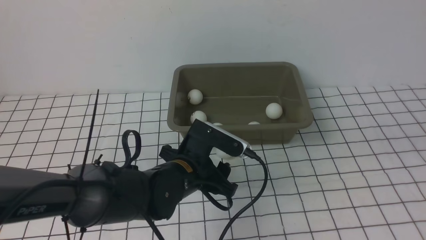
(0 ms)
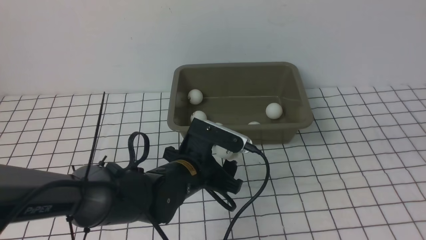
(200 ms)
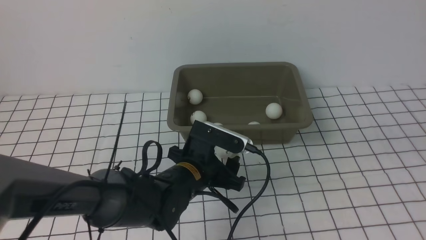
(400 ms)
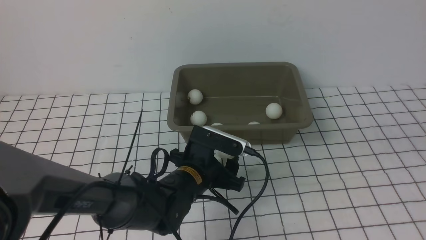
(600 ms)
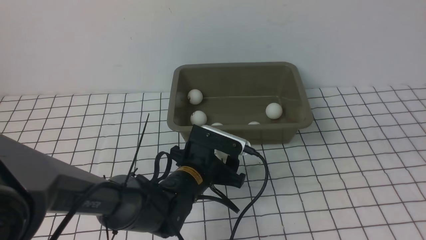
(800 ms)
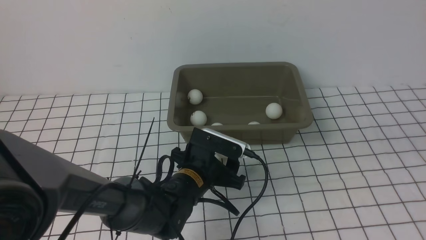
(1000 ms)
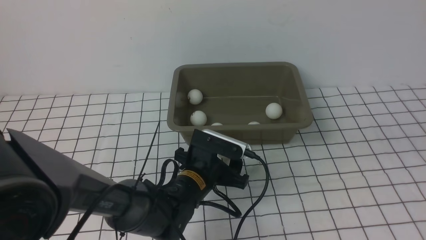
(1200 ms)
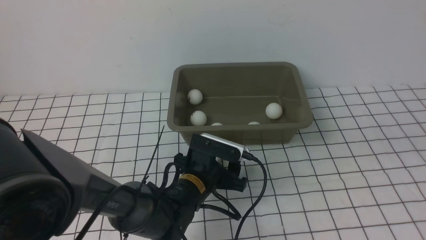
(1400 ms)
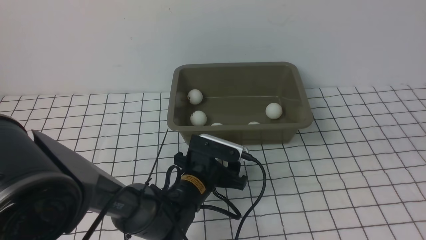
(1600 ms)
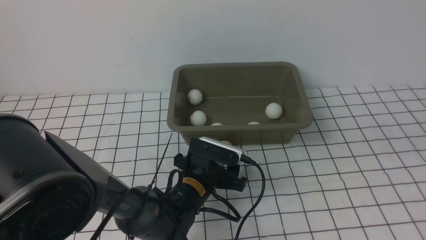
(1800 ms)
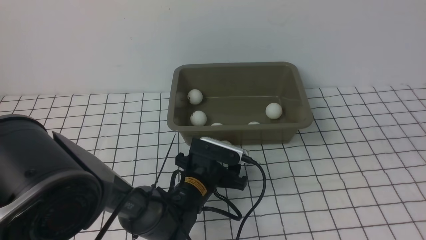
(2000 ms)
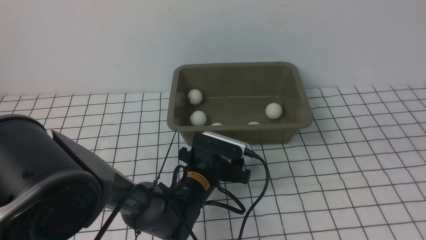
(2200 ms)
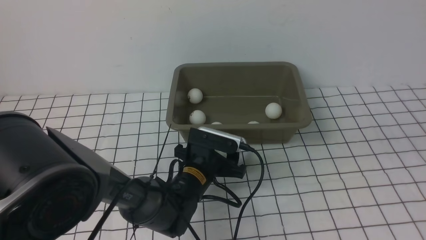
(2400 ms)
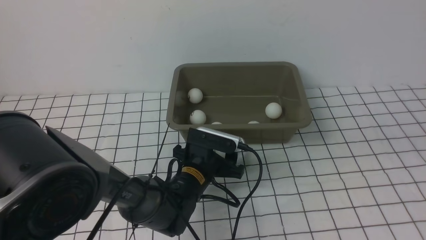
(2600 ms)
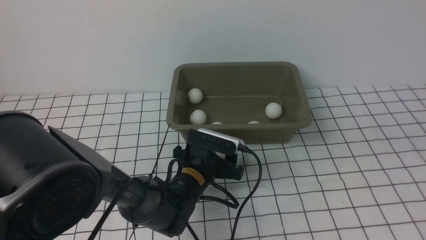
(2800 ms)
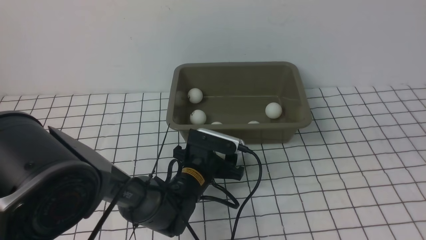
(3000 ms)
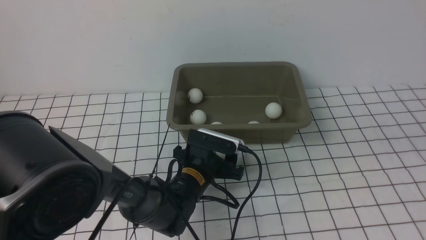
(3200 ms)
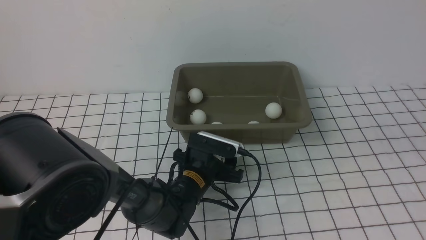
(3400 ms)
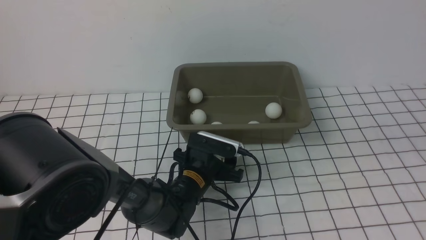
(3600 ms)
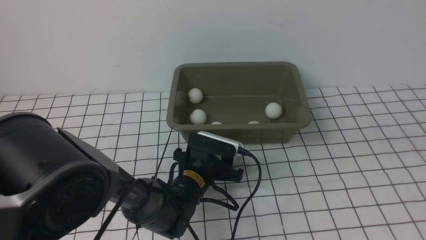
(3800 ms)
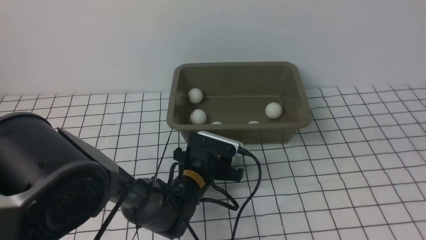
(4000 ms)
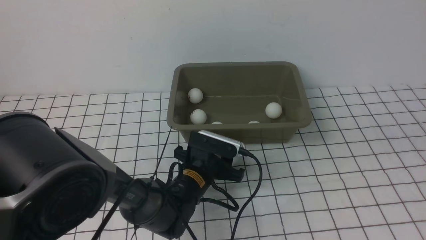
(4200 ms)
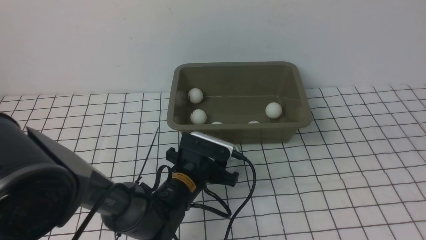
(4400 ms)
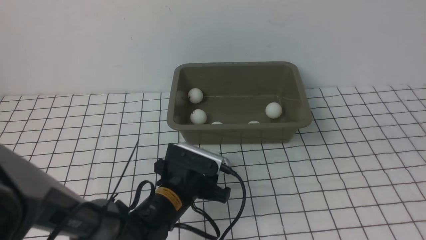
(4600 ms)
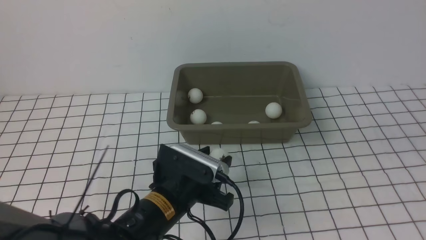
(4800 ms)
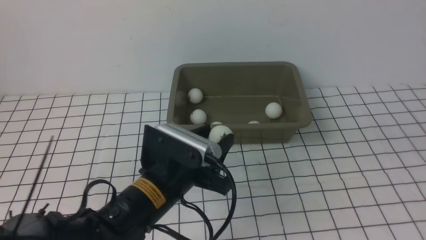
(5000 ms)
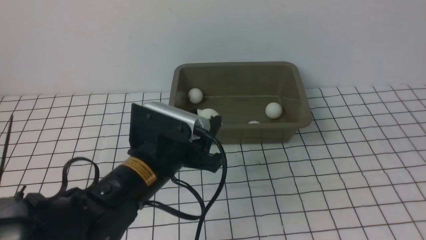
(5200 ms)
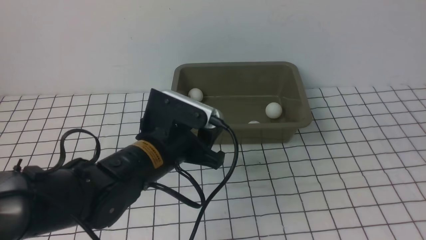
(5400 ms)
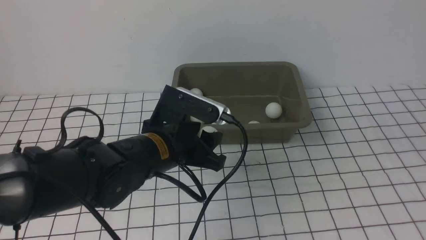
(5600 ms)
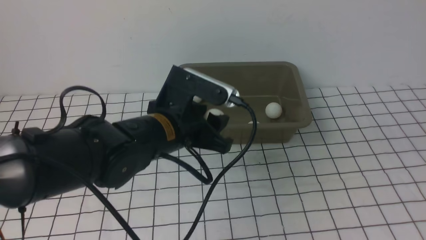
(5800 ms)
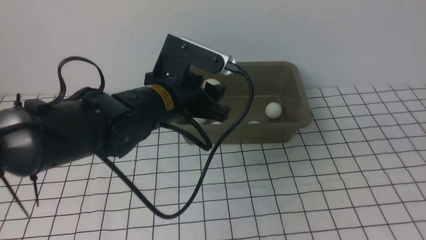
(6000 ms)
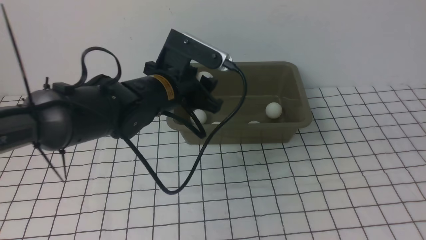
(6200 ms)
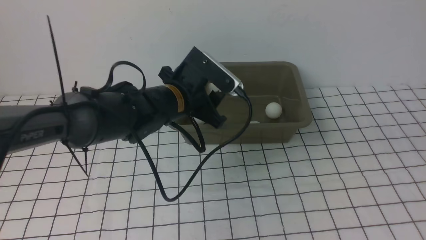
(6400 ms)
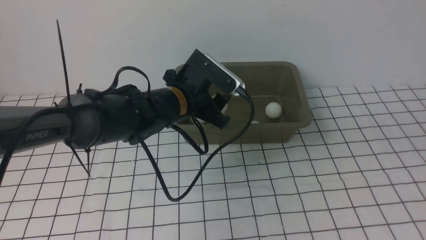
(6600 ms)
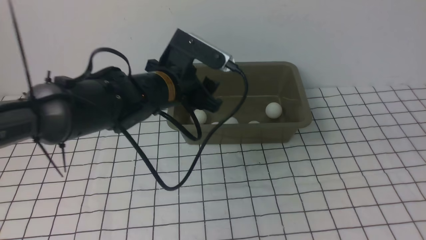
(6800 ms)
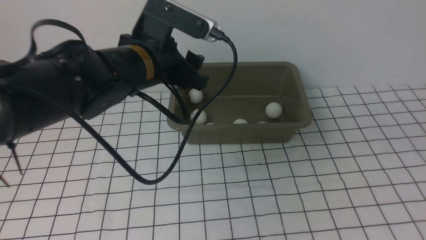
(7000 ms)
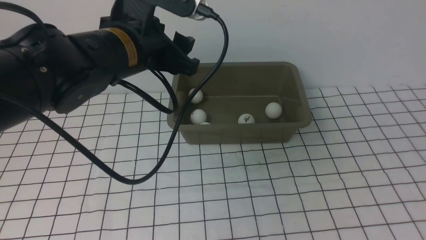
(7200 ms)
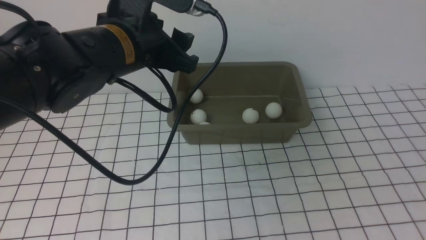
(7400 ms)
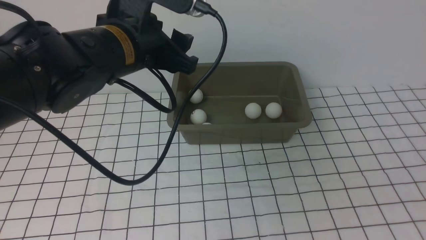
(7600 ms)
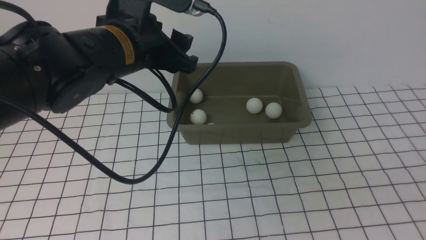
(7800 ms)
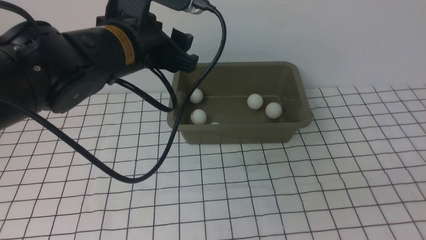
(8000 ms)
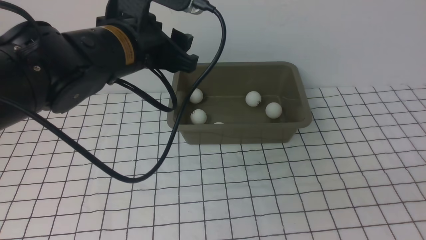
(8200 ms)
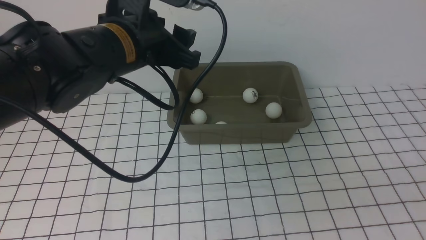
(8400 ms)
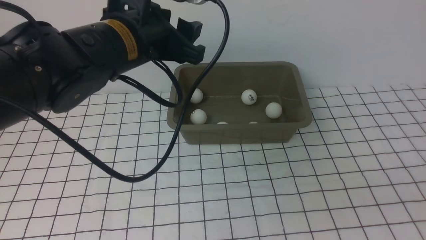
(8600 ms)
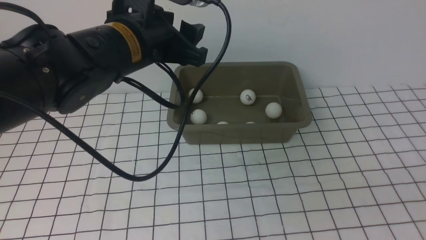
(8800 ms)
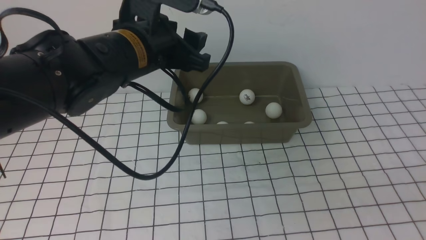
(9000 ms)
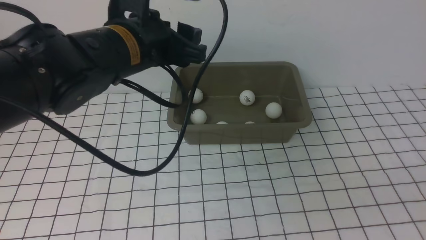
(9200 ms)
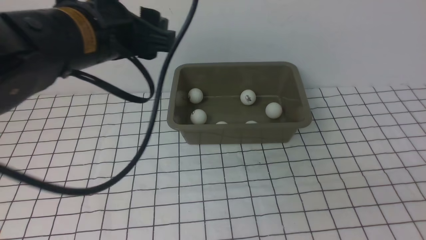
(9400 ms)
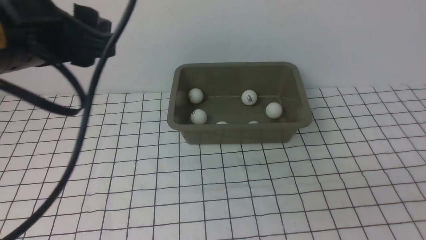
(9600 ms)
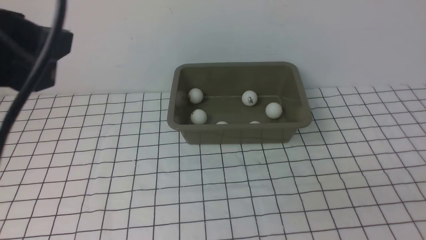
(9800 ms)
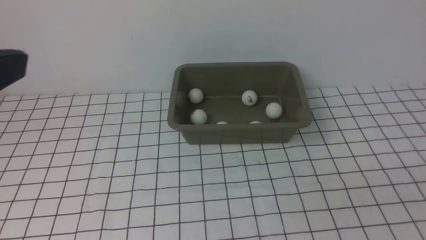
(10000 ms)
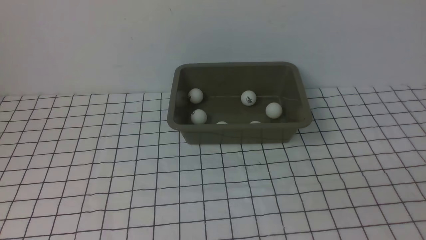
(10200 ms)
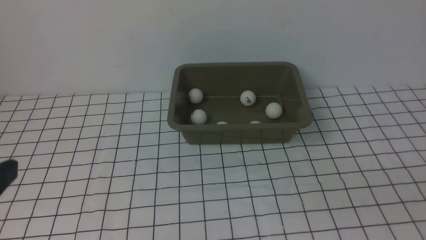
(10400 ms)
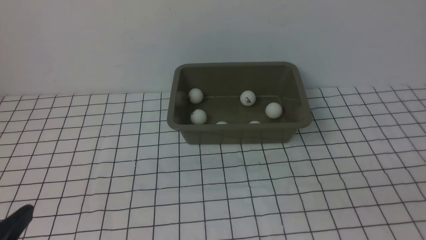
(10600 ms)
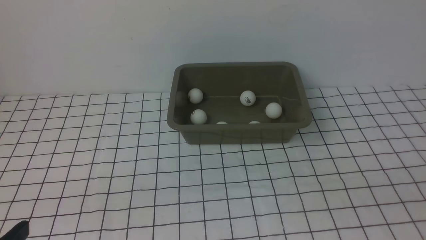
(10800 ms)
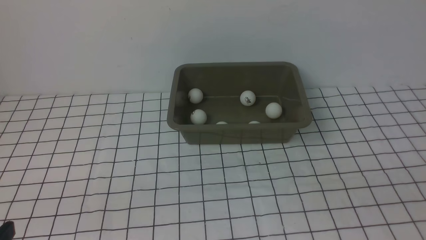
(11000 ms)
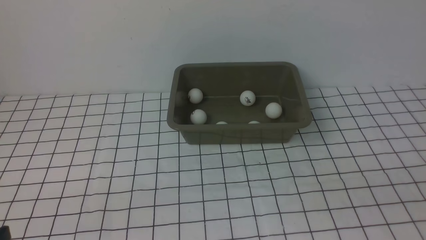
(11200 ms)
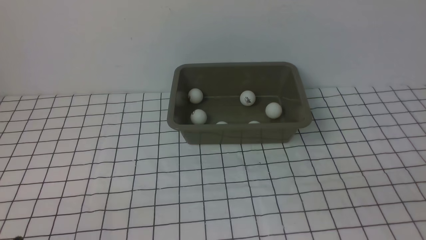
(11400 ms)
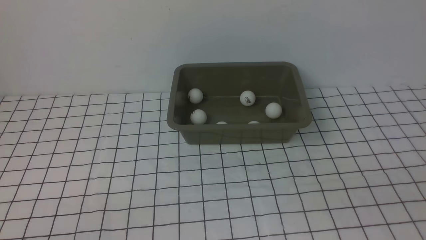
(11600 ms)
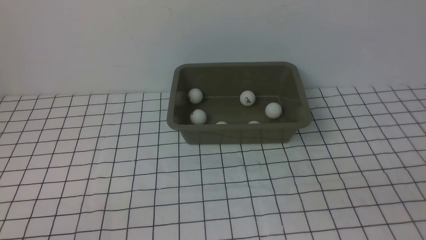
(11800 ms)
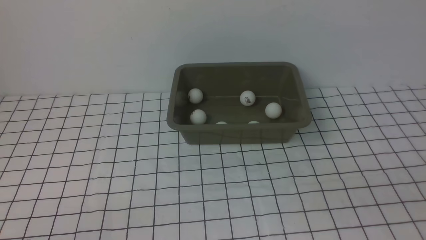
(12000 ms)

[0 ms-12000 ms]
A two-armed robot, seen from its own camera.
Step, 0 ms to 4400 ms: use the left arm to clamp the table tennis ball closest to it.
Step, 4600 ms to 6800 ms: use the left arm to put the table tennis ball into the box.
0 ms to 1600 ms: The left gripper is displaced downward by about 5 cm.
1600 ms to 3000 ms: The grippers stay close to where they were, moving slightly.
3000 ms to 4400 ms: The left gripper is displaced upward and backward by about 15 cm, and closes its fingers.
4400 ms to 6000 ms: The left gripper goes approximately 15 cm forward.
6000 ms to 7600 ms: The right gripper goes roughly 10 cm downward and backward; the left gripper is displaced upward and backward by some 15 cm.
7600 ms to 9000 ms: The right gripper closes its fingers.
9000 ms to 10400 ms: The left gripper travels backward and to the left by approximately 30 cm.

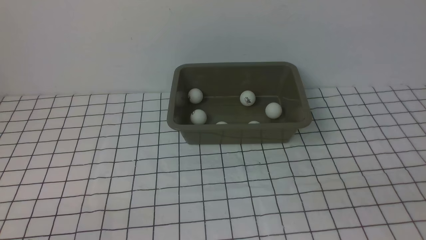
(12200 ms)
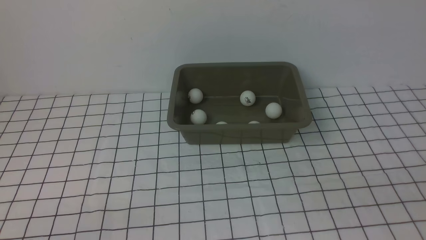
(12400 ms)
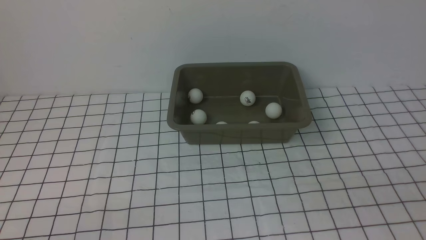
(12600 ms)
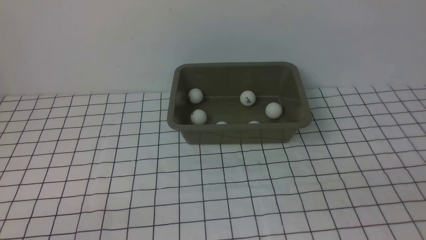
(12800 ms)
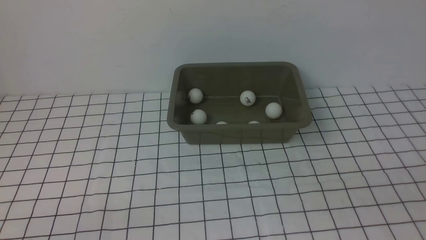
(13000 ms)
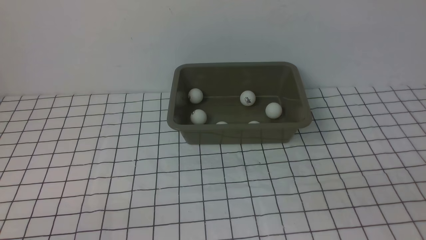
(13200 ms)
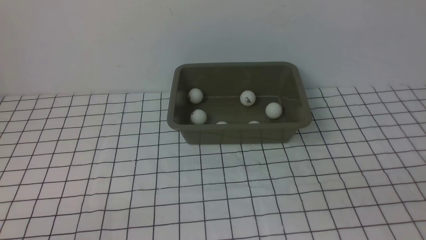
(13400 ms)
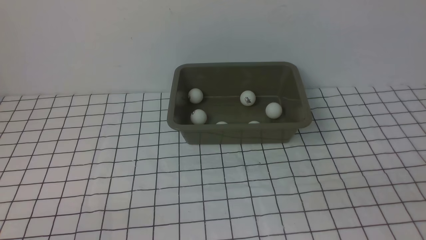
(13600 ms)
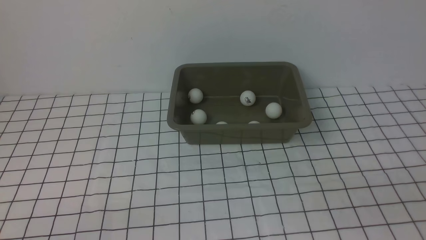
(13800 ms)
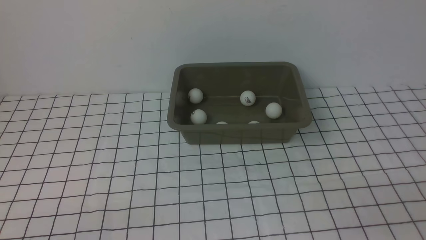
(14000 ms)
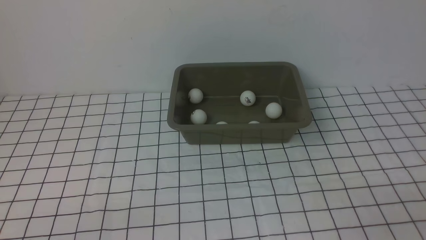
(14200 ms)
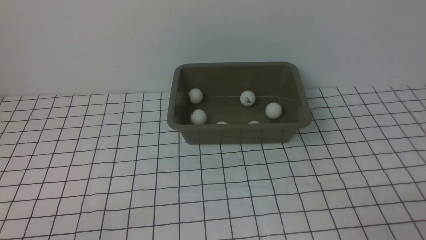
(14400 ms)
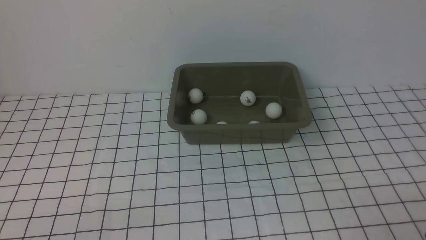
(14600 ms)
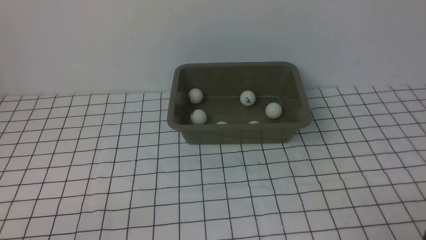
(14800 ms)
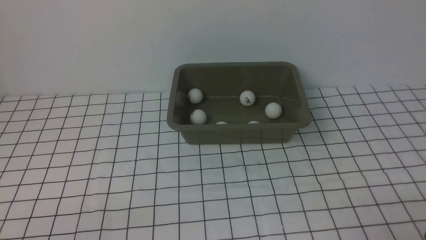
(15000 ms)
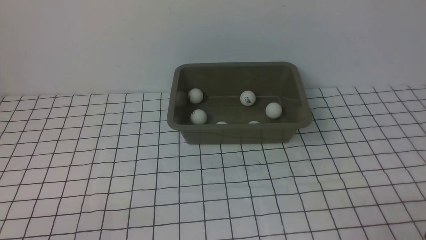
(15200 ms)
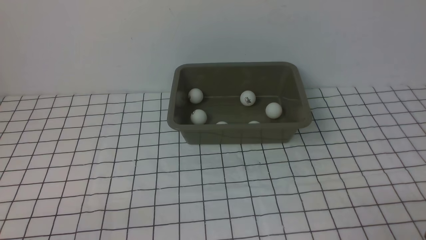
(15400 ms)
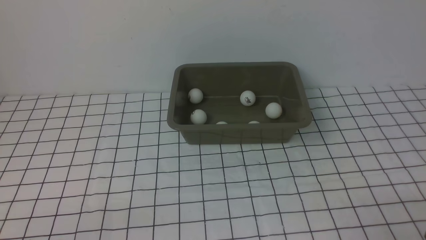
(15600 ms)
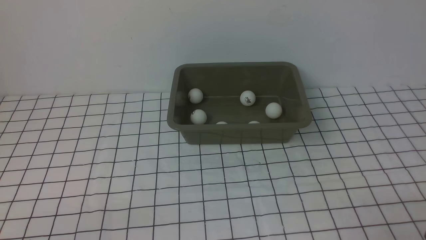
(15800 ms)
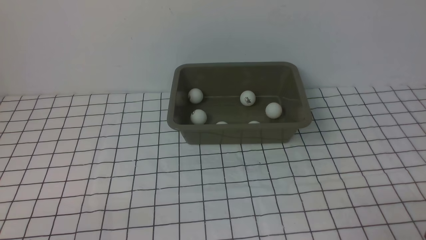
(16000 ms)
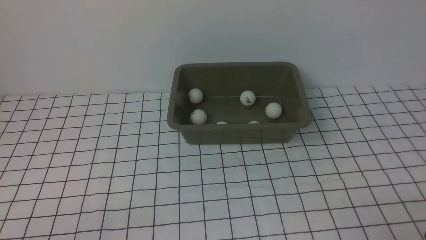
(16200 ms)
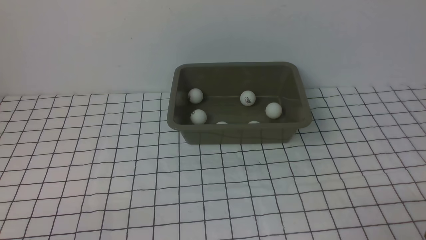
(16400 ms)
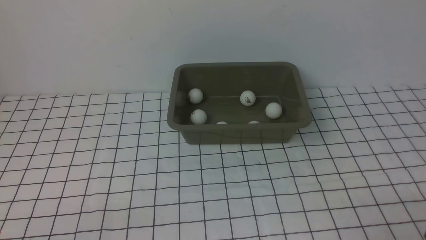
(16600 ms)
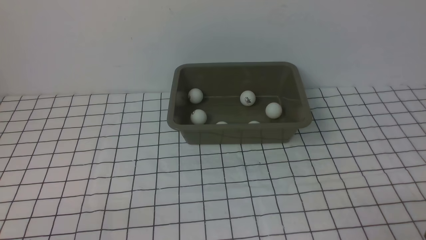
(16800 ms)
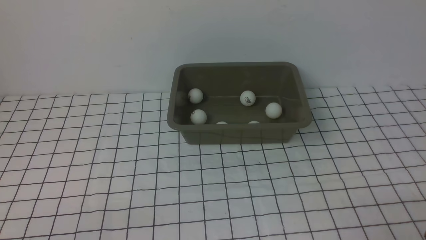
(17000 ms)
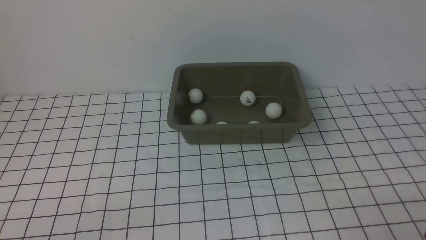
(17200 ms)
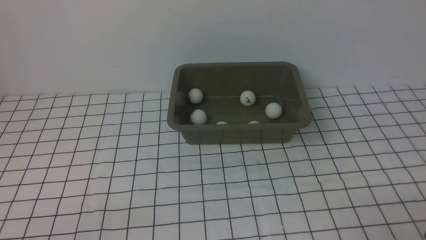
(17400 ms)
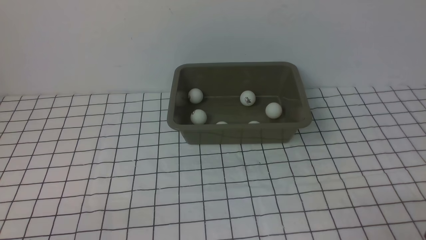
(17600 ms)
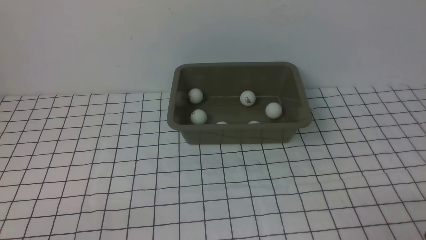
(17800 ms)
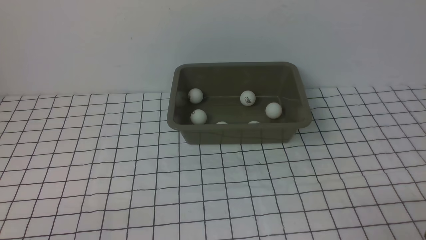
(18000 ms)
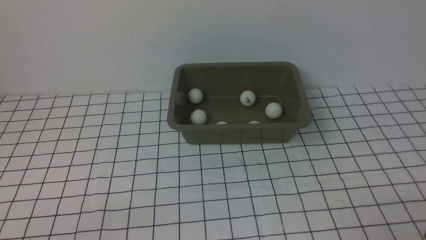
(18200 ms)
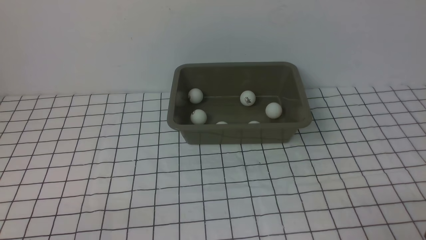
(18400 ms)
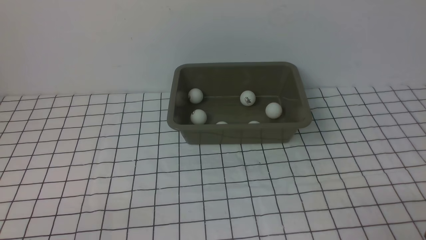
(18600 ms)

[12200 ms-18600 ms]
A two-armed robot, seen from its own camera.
15400 ms to 18600 ms: Both grippers stay about where they are.
